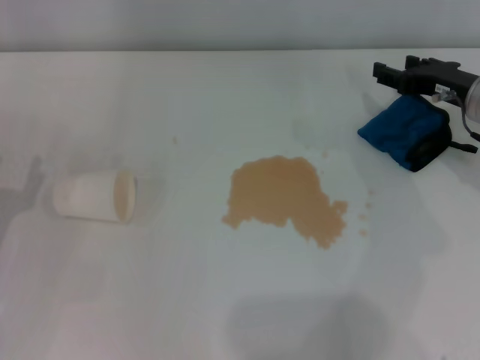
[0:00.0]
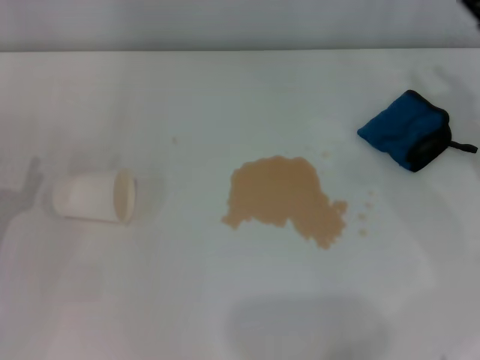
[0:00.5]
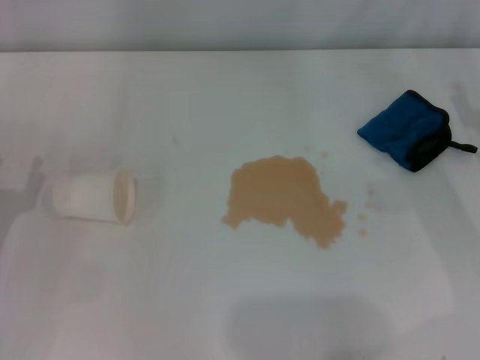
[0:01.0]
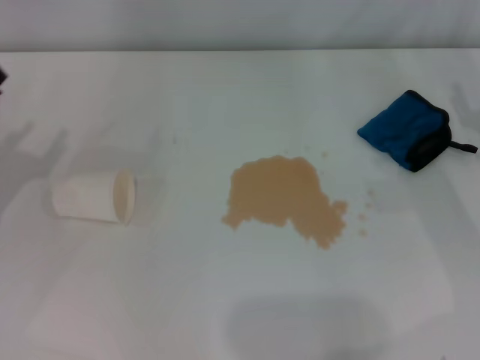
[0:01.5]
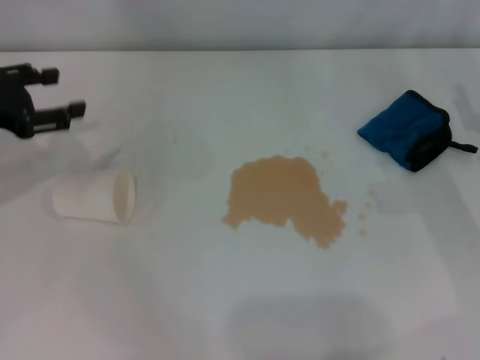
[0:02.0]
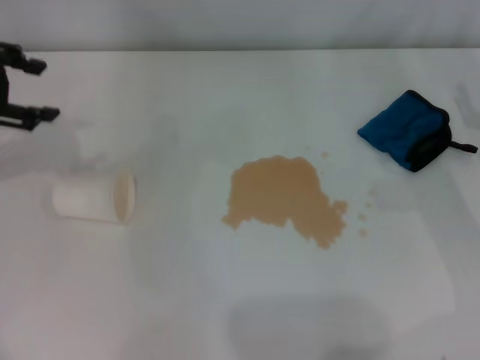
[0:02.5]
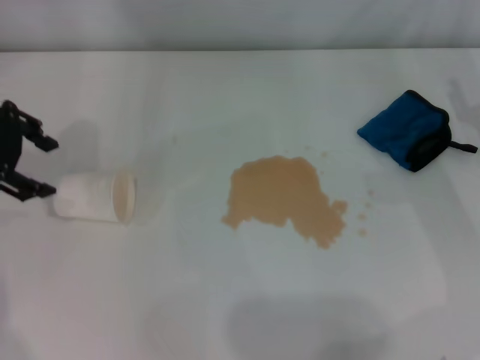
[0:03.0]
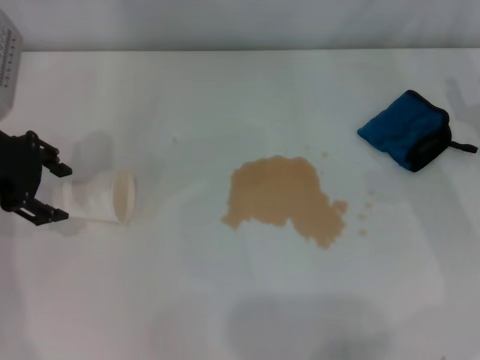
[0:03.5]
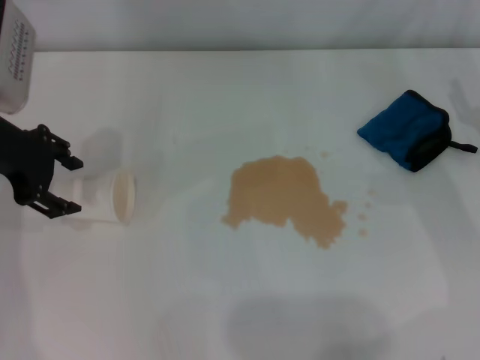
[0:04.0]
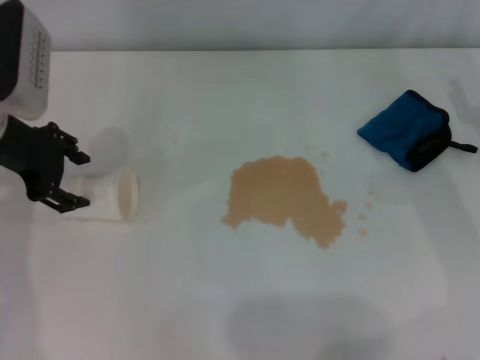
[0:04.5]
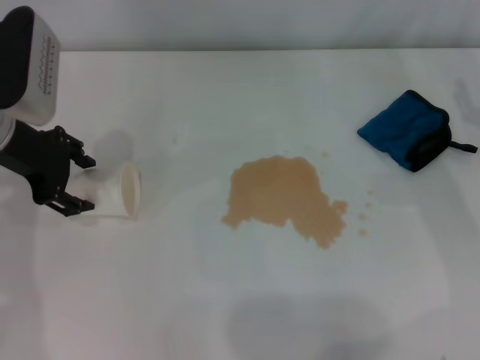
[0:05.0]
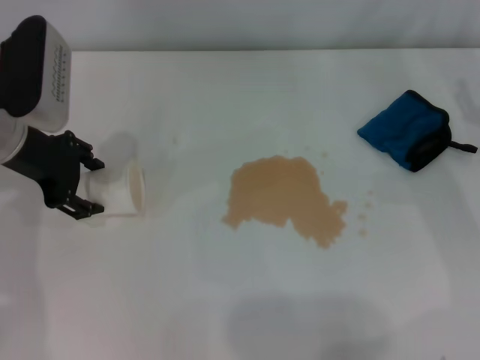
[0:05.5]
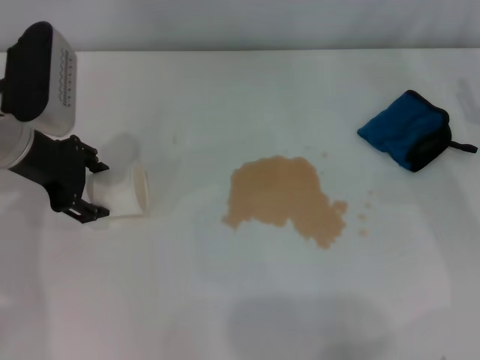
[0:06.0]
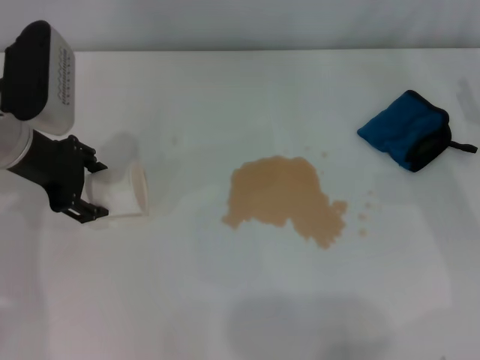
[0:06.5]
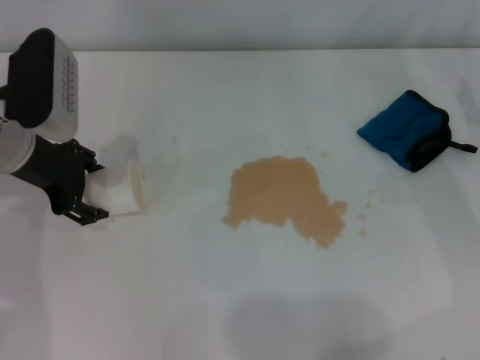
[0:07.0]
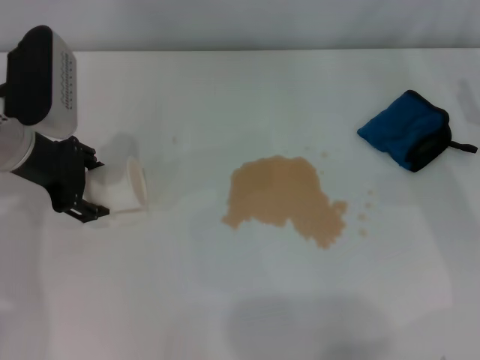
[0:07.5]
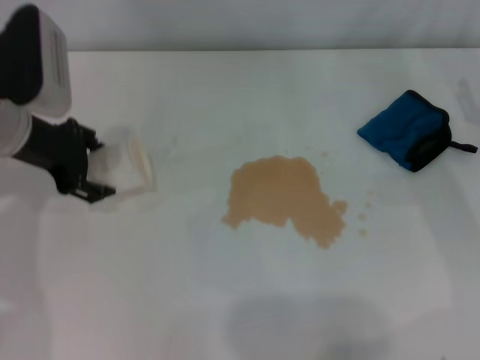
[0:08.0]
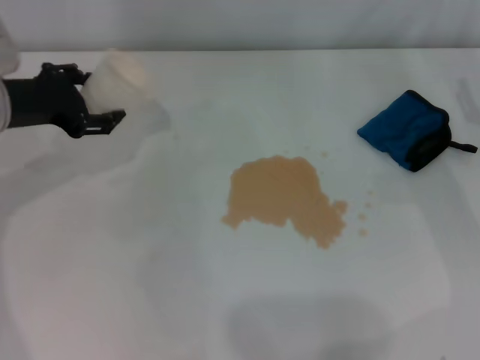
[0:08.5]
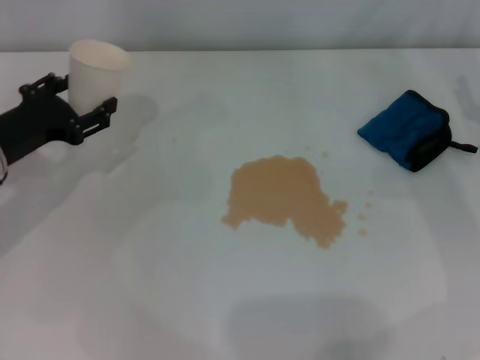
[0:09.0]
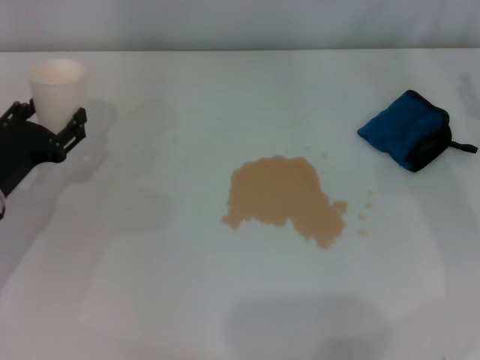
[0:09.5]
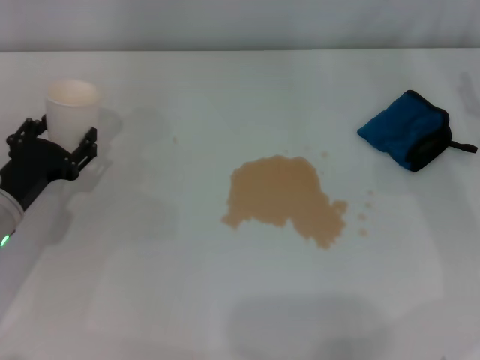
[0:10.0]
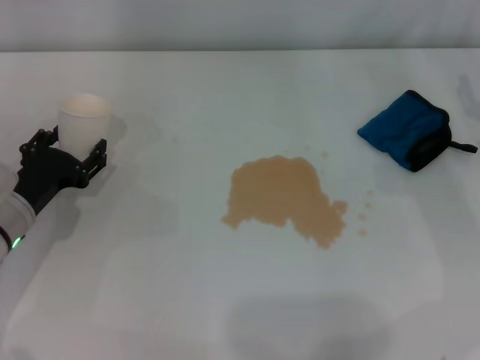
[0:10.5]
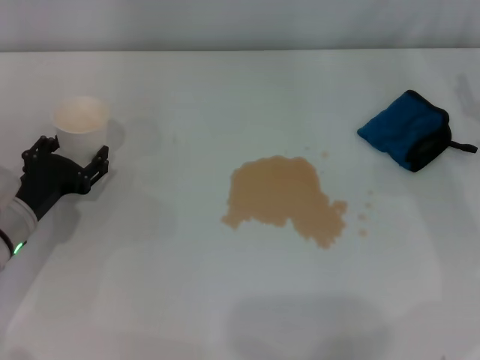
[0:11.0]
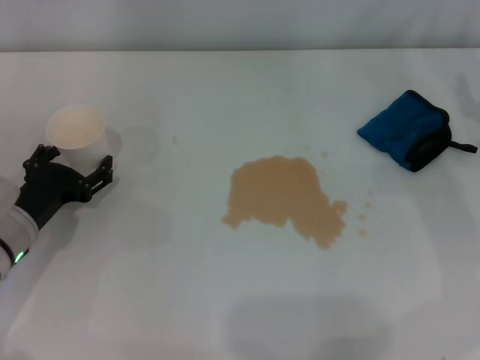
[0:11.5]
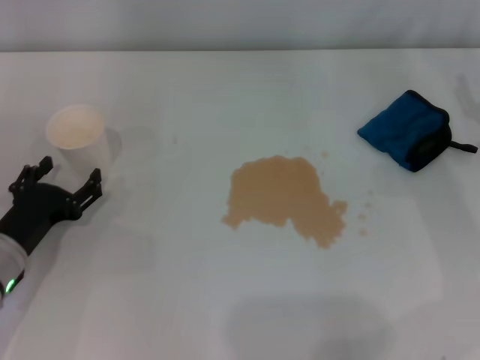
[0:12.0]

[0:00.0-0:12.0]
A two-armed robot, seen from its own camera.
Step, 0:00.0 to 0:07.0: Grasp the paper cup with the left gripper.
Step, 0:07.5 to 0:11.5: Stand the paper cup upright with the left gripper.
0:00.0 to 0:02.0: The right gripper travels backward and to the right by approximately 10 cm, while the left gripper moves forward and upward, approximately 15 cm.
0:02.0 to 0:04.0: The left gripper moves to the right, approximately 5 cm.
0:04.0 to 0:08.0: The grippers make only small movements.
0:08.0 to 0:10.0: The left gripper is displaced downward and backward by some 15 cm.
0:10.0 to 0:12.0: The left gripper opens.

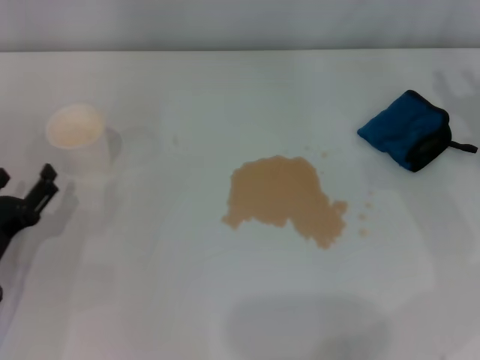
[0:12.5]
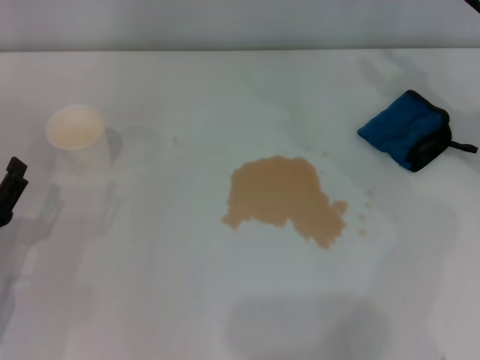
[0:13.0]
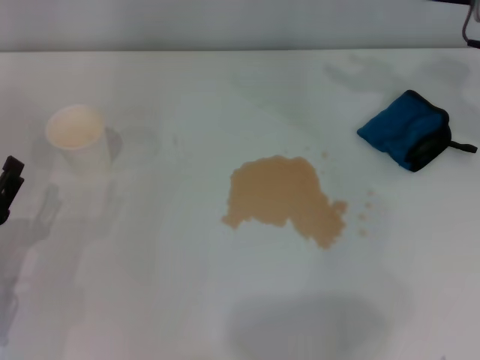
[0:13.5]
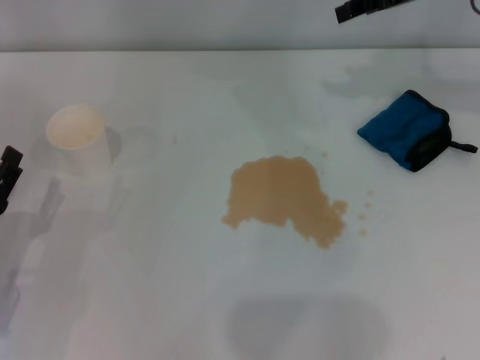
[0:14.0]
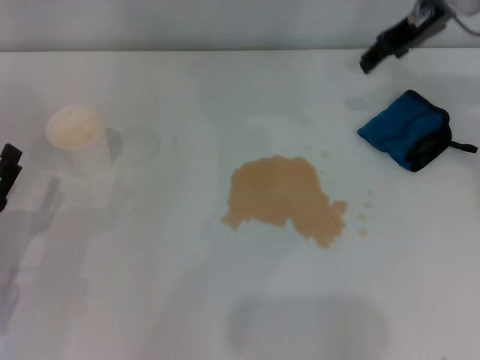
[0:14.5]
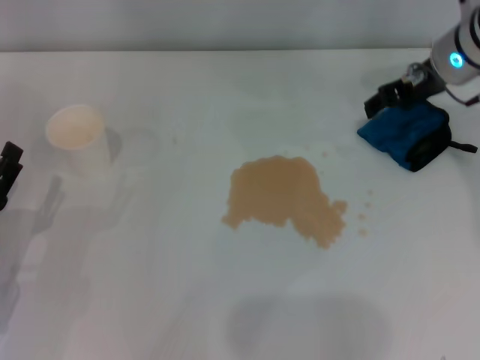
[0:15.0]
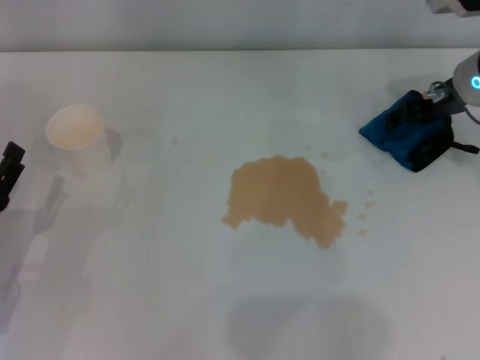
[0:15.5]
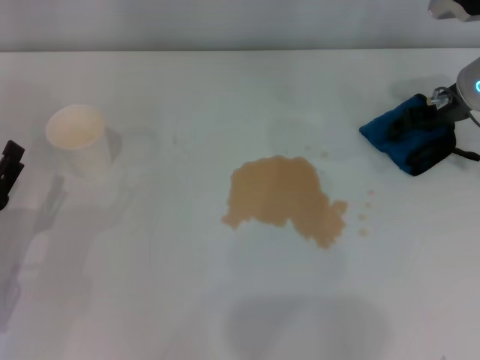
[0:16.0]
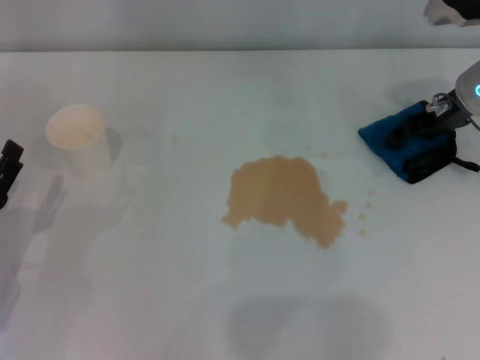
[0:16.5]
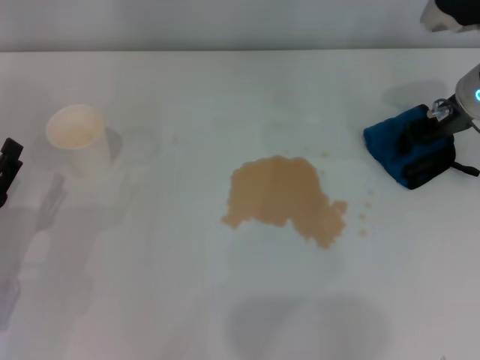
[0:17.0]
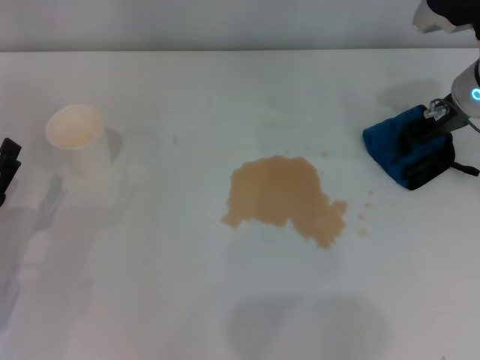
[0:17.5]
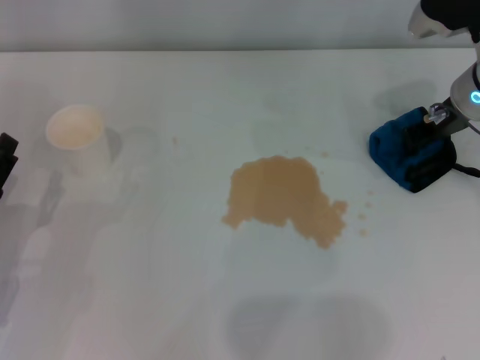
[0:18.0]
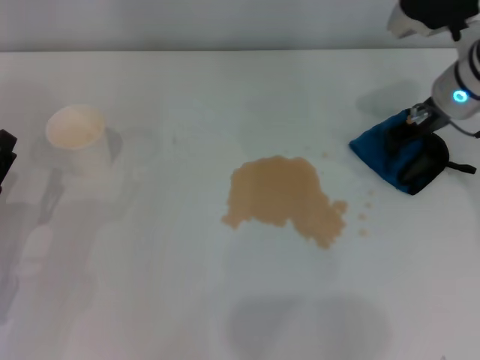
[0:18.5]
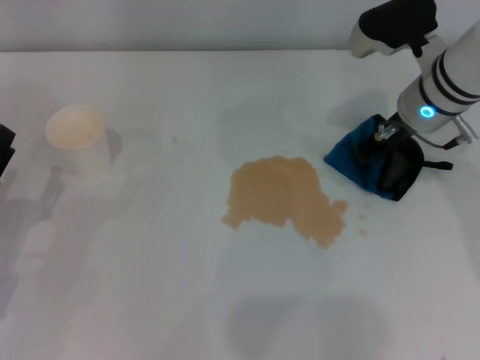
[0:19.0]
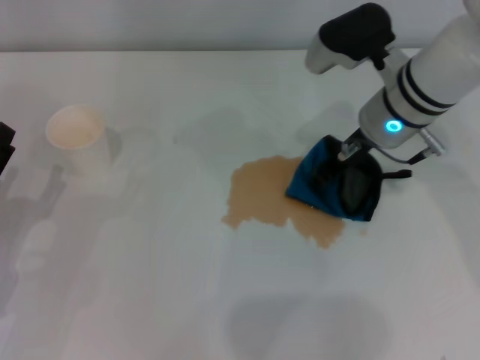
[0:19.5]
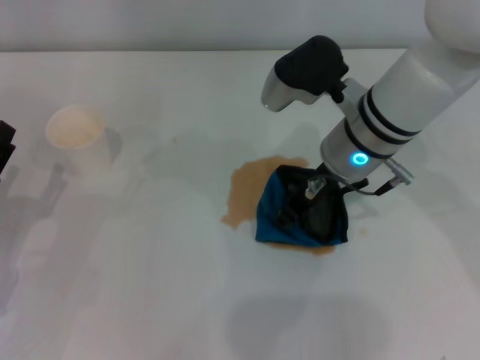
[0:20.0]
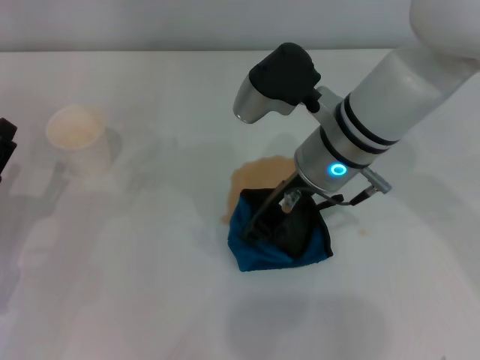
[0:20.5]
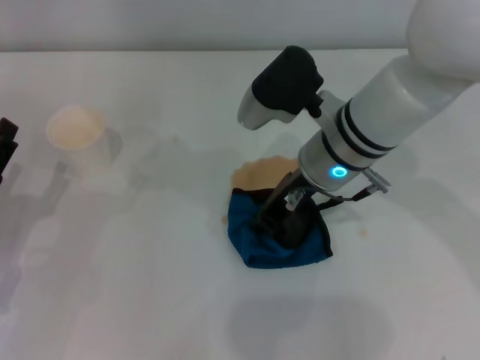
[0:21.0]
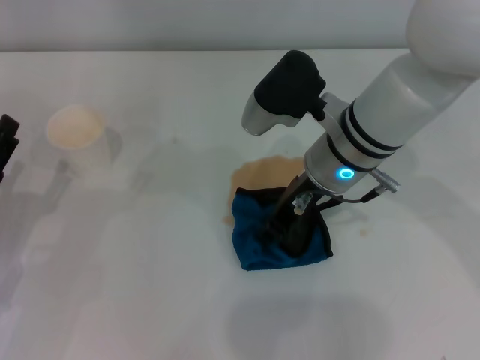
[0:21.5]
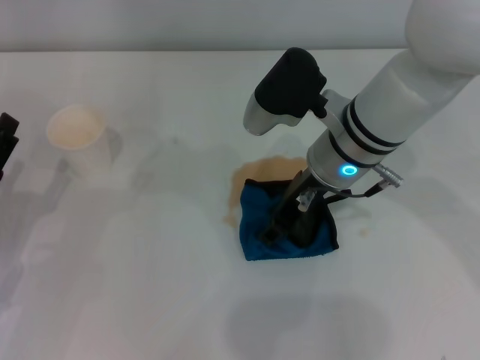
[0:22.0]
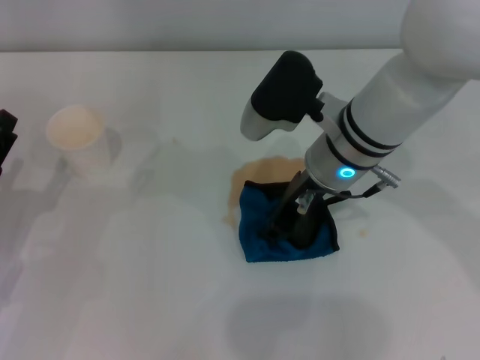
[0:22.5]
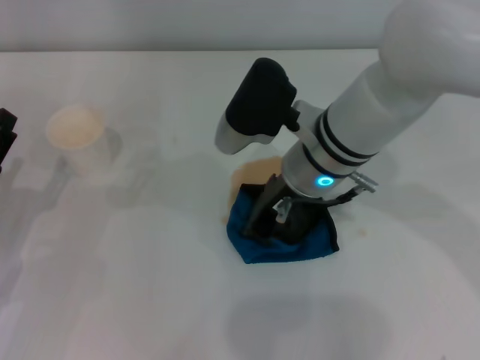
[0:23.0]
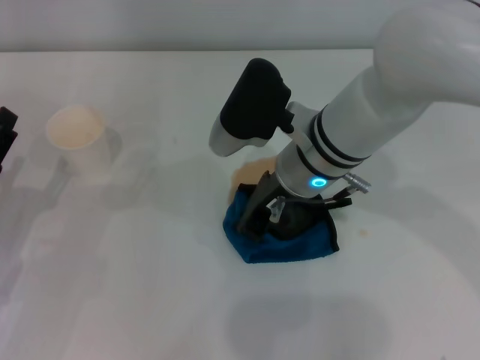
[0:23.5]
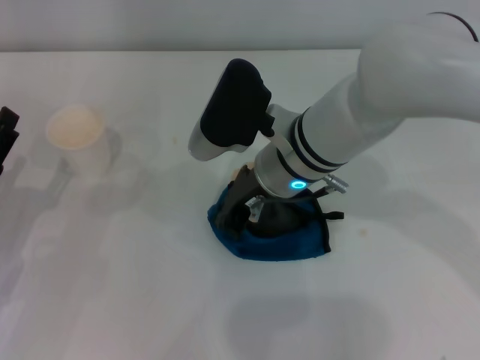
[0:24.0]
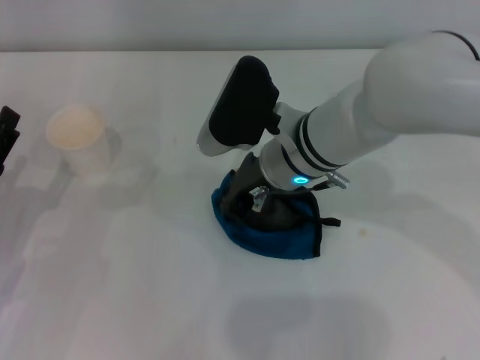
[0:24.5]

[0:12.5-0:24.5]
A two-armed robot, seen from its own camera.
Step, 0:12.5 to 0:15.0: Grasp the rag with the right gripper.
0:12.5 to 0:14.5: The right gripper is displaced forward, upward and to the left by approximately 20 cm.
0:14.5 to 0:16.5: The right gripper moves downward, some 10 cm.
0:16.5 to 0:18.5: The right gripper closes its fingers.
0:18.5 to 0:20.5: The right gripper travels to the left and backward by some 15 cm.
0:20.5 to 0:22.5: The right gripper opens.
0:22.5 to 0:24.5: The right gripper closes.

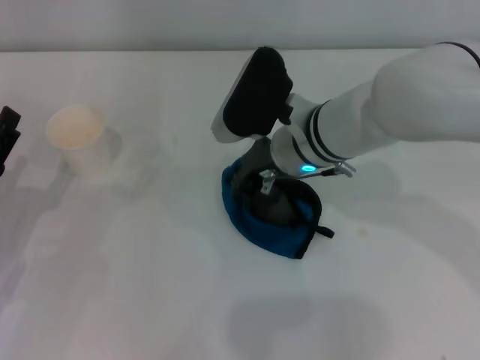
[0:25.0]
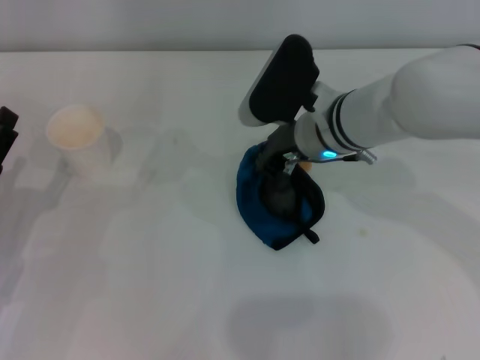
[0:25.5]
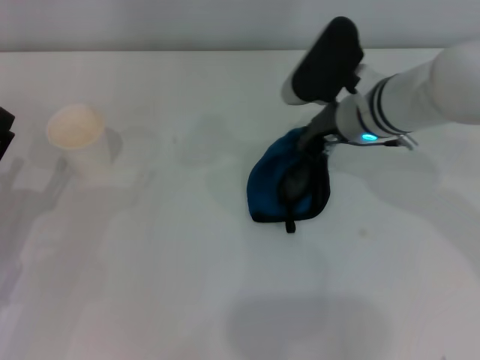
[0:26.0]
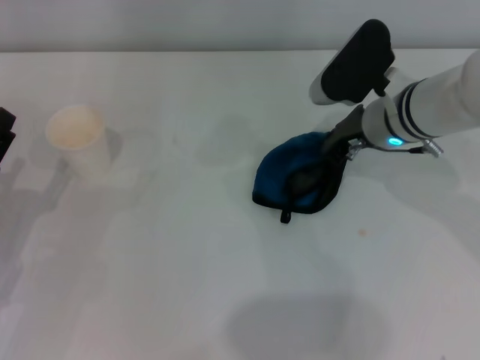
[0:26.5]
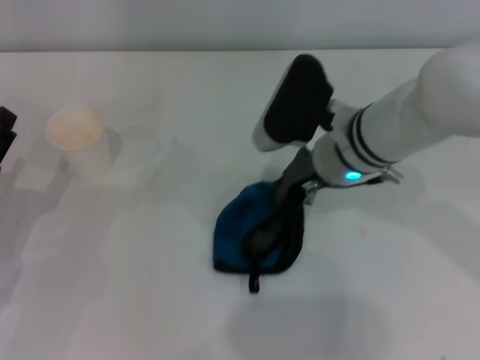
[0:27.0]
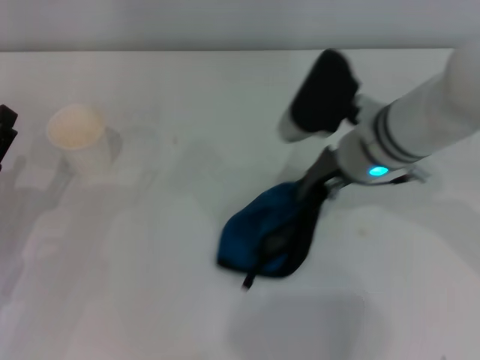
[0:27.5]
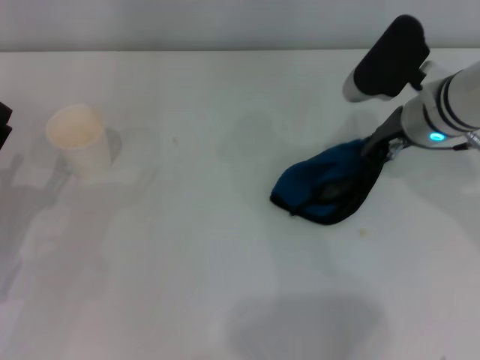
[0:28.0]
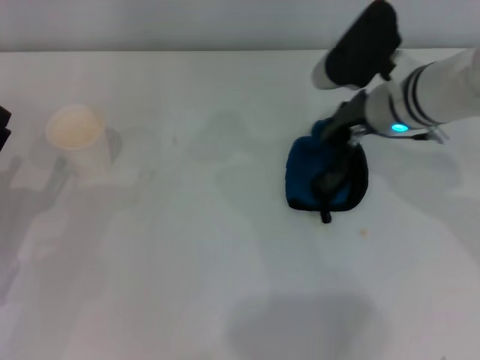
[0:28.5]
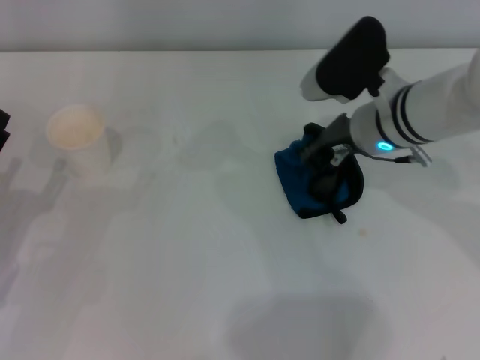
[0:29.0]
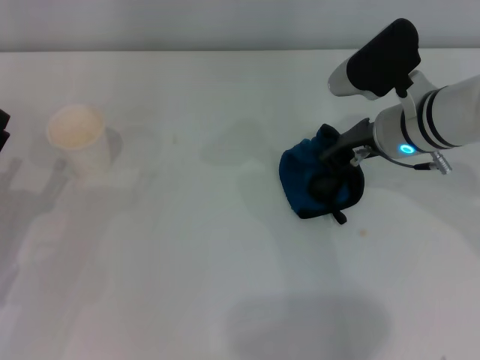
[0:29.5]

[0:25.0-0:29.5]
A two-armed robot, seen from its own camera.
0:27.0 to 0:29.5: The right gripper heads to the right, covering some 5 cm.
